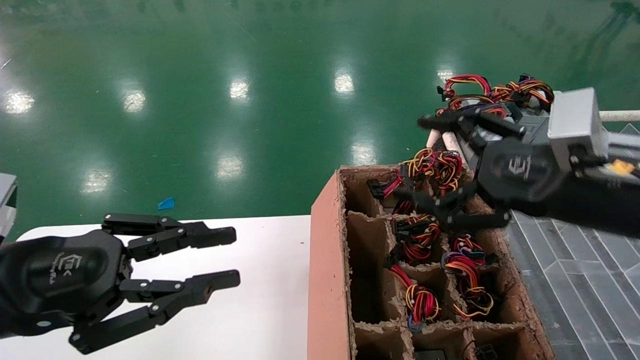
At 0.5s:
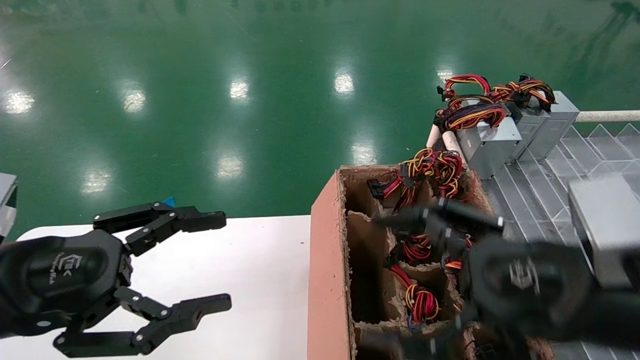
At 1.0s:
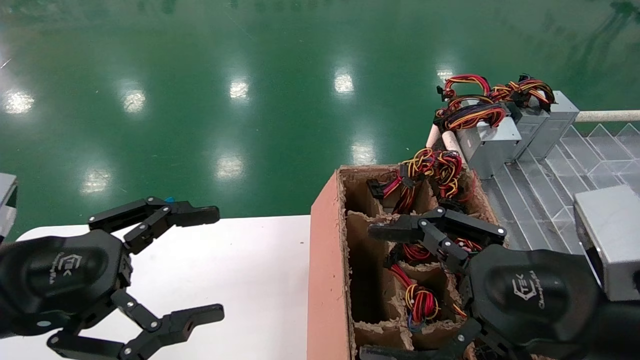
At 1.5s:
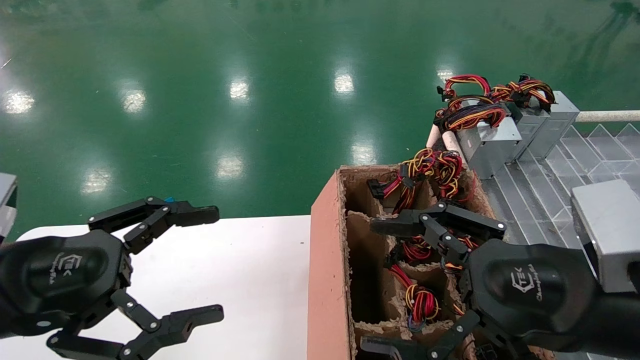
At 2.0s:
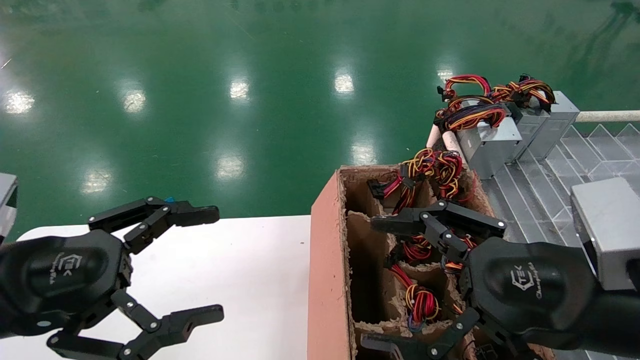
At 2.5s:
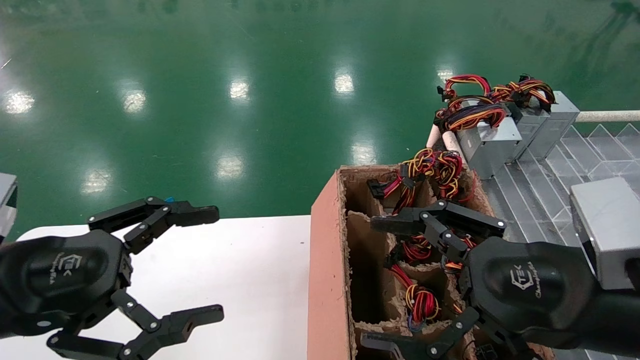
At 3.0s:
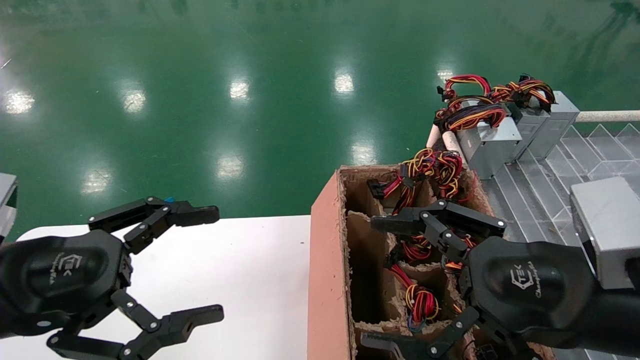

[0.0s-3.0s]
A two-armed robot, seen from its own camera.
0.0s to 1.5s: The right gripper is displaced backward by some 5 cm. Meanwhile the left gripper opens.
1.5s to 3.0s: Both grippers stay about where they are.

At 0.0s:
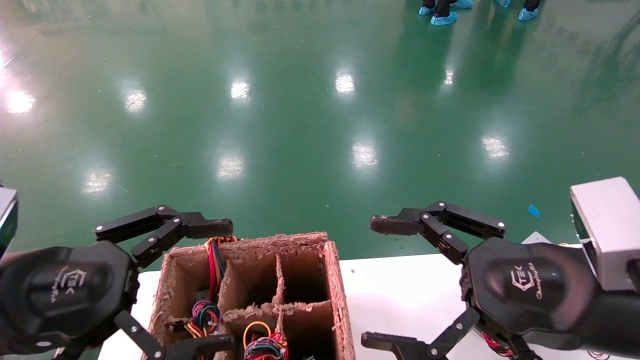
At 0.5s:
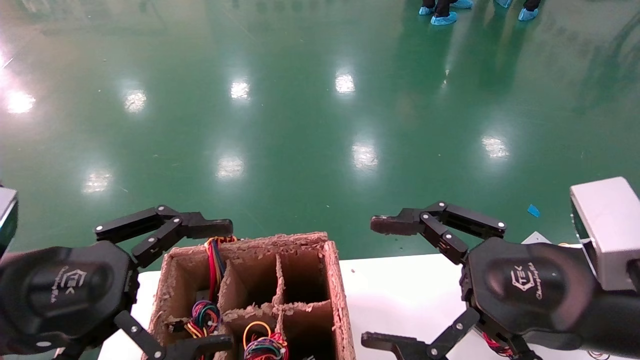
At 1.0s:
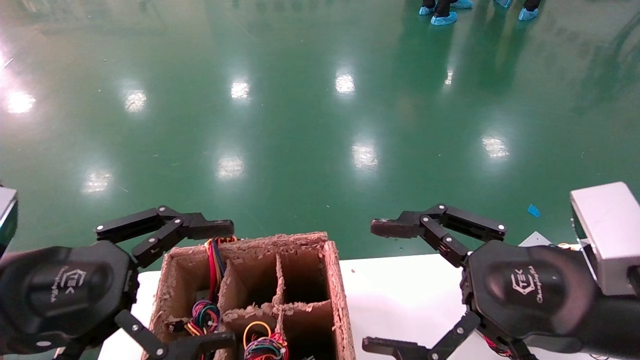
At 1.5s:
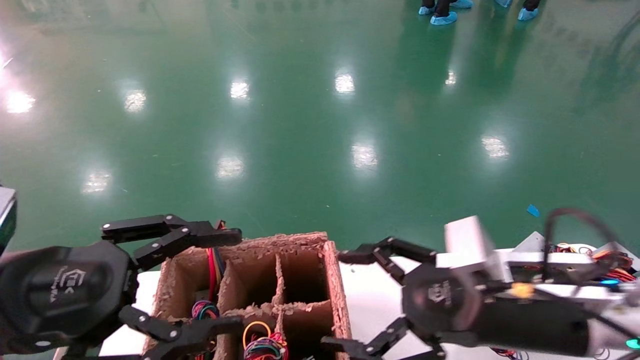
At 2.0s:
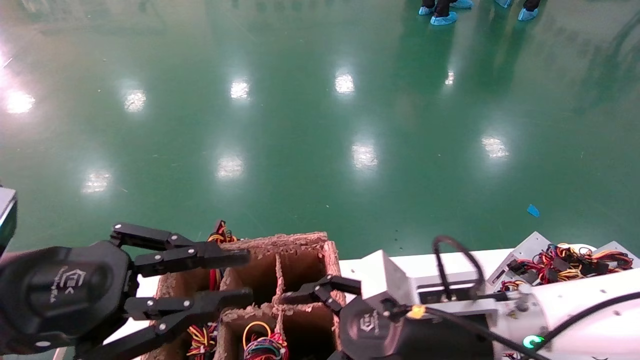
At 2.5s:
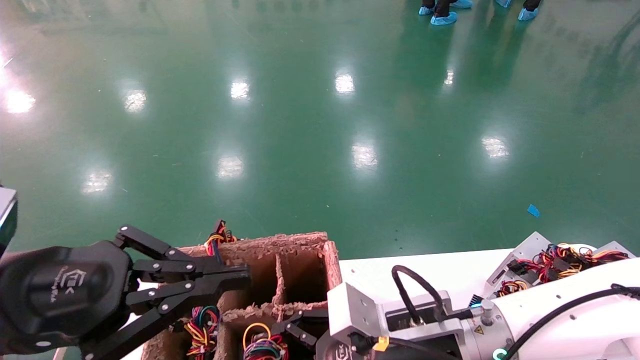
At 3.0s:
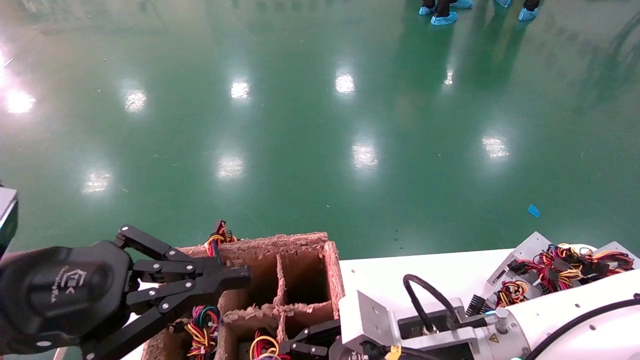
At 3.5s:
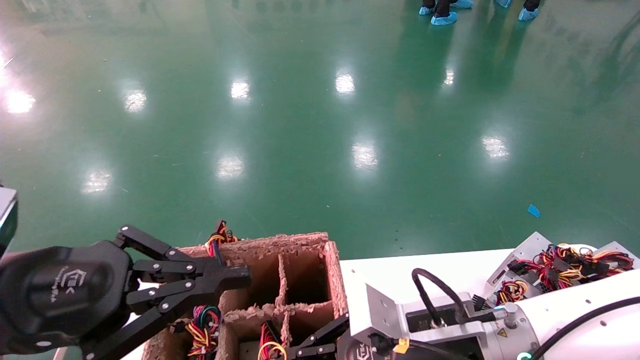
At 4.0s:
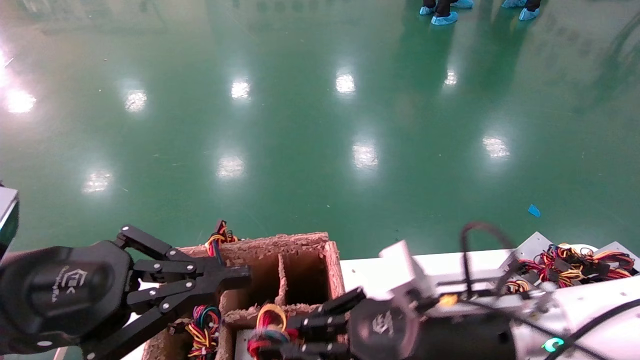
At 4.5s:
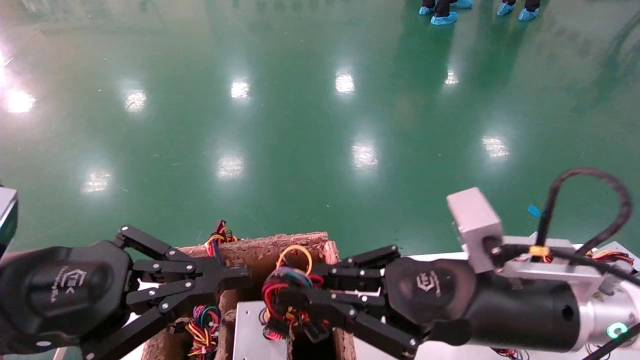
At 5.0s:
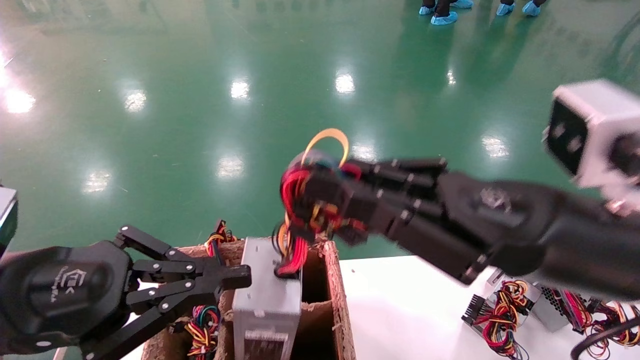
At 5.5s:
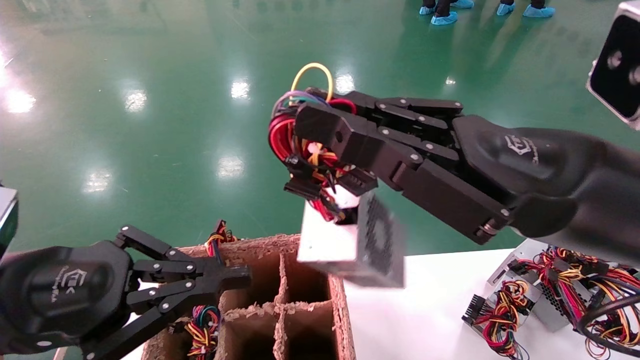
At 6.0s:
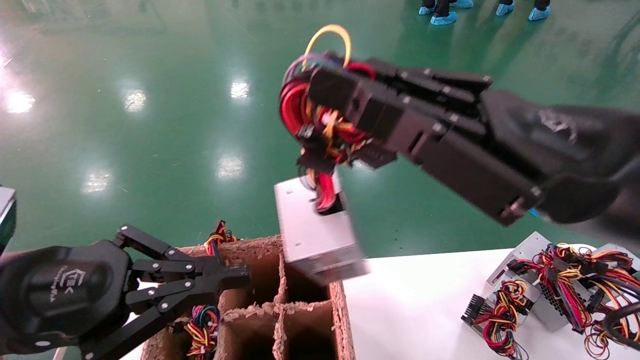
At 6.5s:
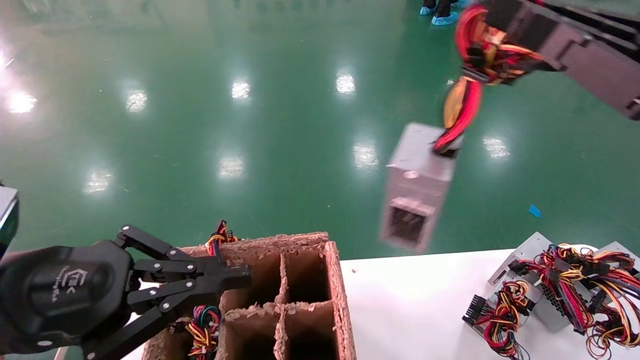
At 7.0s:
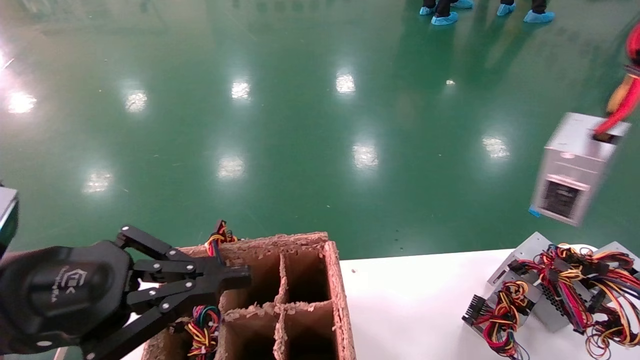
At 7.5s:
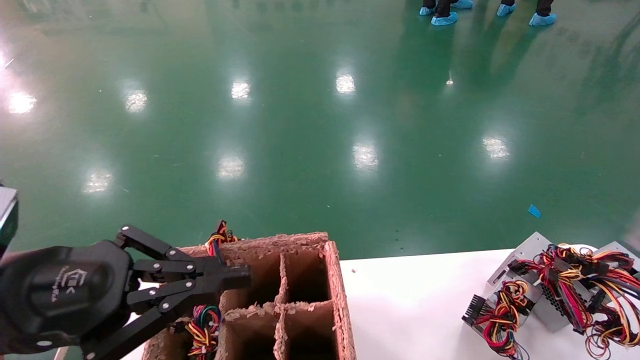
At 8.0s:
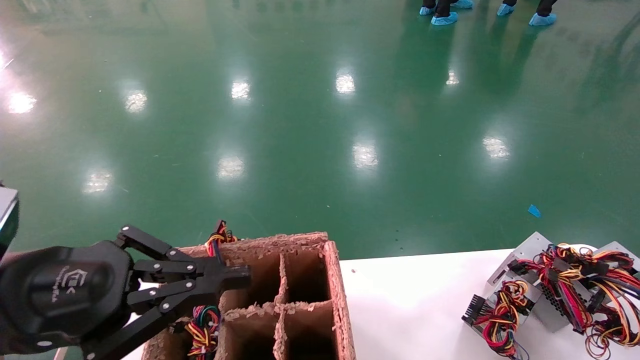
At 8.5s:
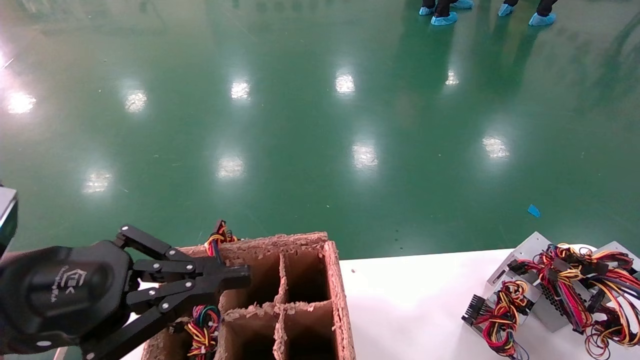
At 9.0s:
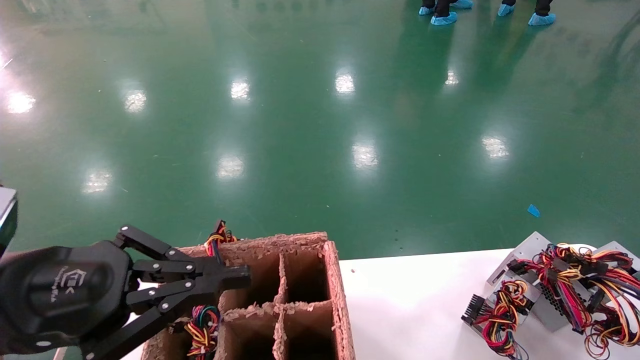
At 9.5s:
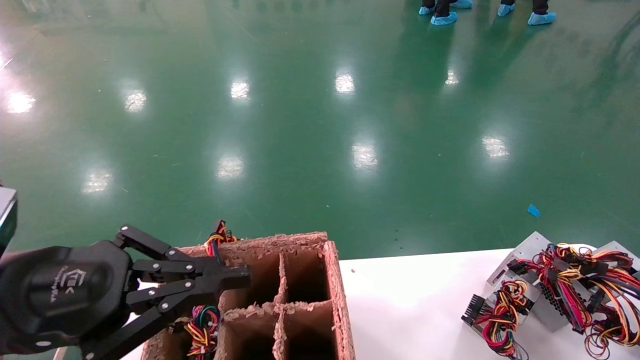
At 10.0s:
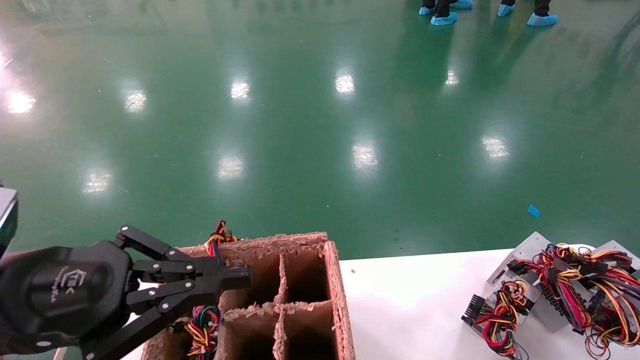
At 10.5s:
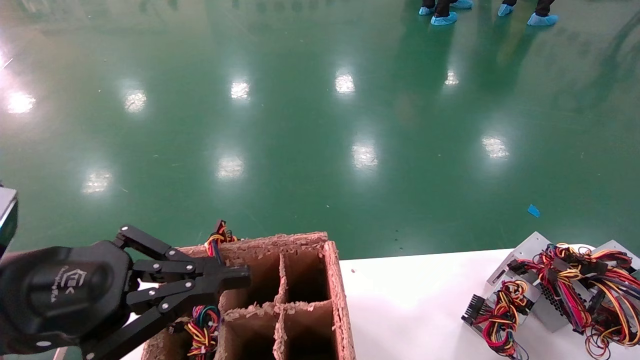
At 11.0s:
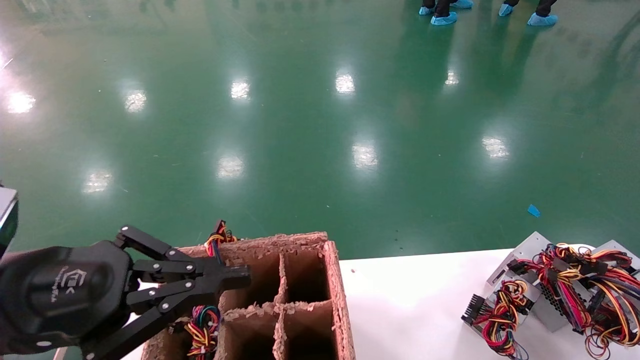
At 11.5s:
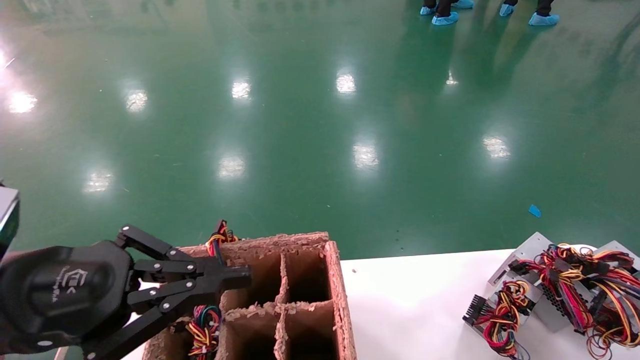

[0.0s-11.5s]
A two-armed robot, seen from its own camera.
Step, 1.5s to 3.5s: Grab the main unit power supply from the containment box.
Step, 4.0s to 11.0s: Place the main unit power supply in the designated area.
0.0s to 2.0s: The left gripper closes up, while the right gripper moves to the left, downward and forward, roughly 15 cm.
2.0s to 4.0s: The right gripper closes, while the left gripper closes.
4.0s to 6.0s: The right gripper shifts approximately 20 cm upward and backward.
6.0s to 7.5s: The right gripper goes roughly 30 cm to the right.
7.5s to 9.5s: The right gripper shifts approximately 15 cm downward and forward.
9.5s to 11.5s: The right gripper opens.

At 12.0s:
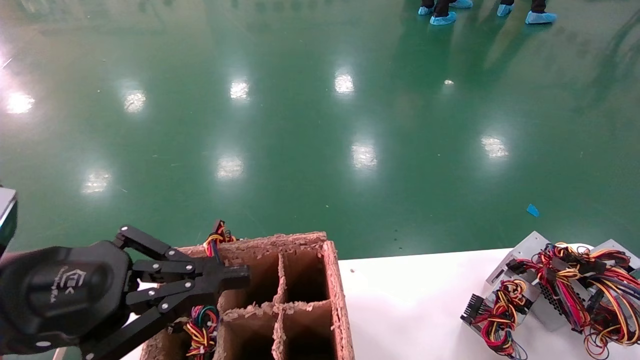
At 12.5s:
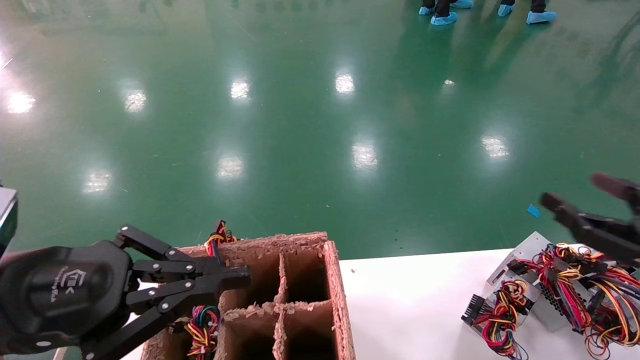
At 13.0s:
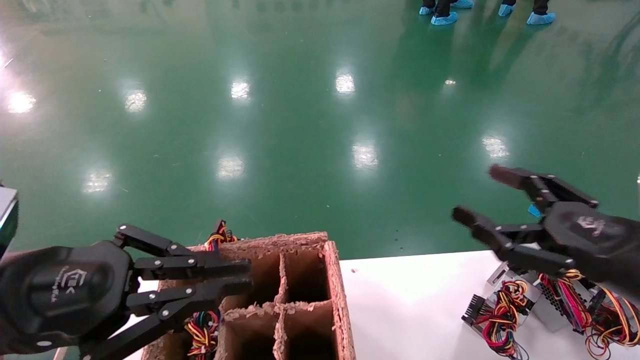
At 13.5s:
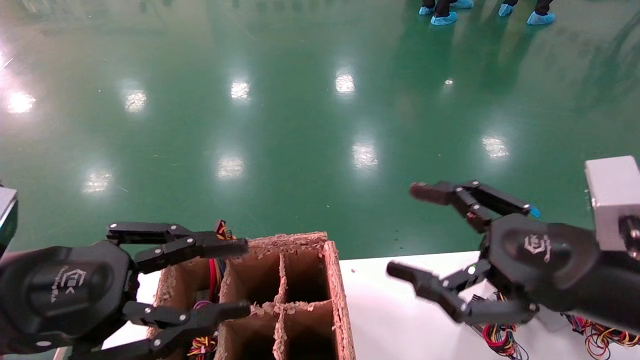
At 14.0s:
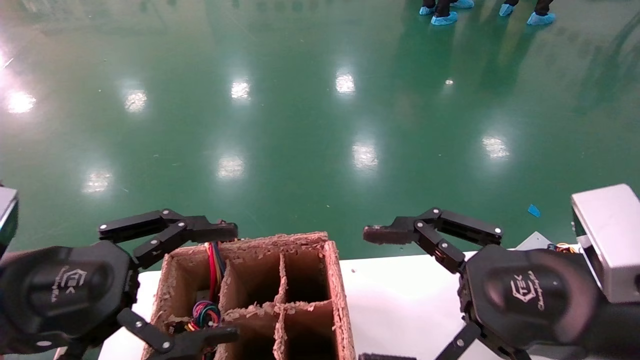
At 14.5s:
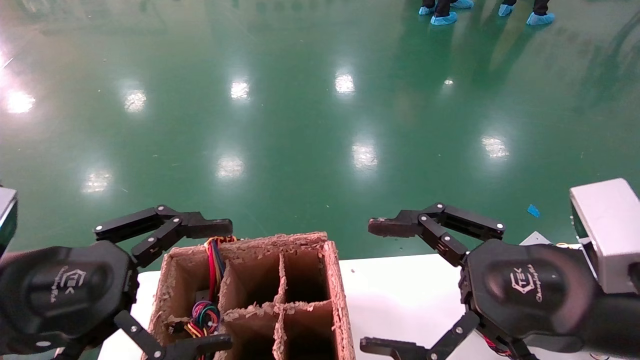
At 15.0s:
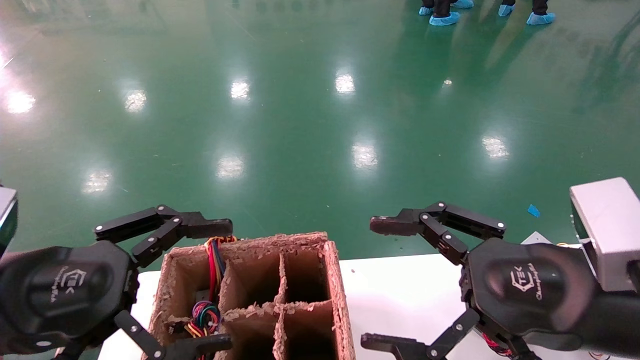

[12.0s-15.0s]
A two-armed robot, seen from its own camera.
12.0s to 13.5s: The right gripper goes about 25 cm to the left.
13.5s to 15.0s: The left gripper opens its fingers.
